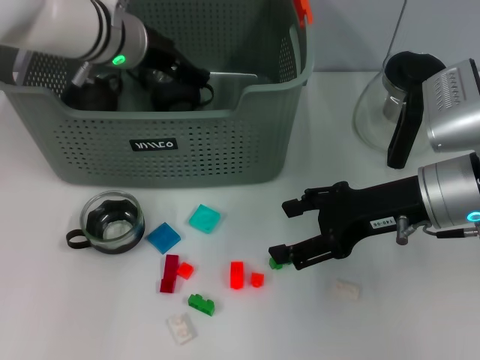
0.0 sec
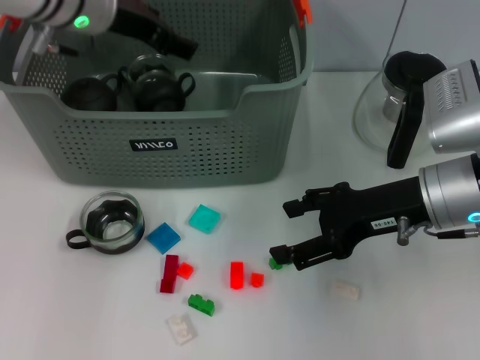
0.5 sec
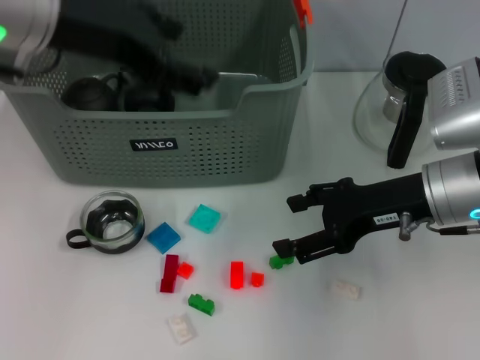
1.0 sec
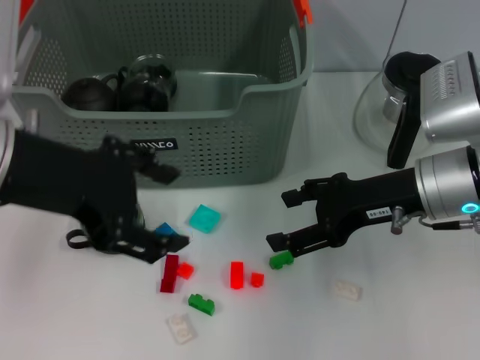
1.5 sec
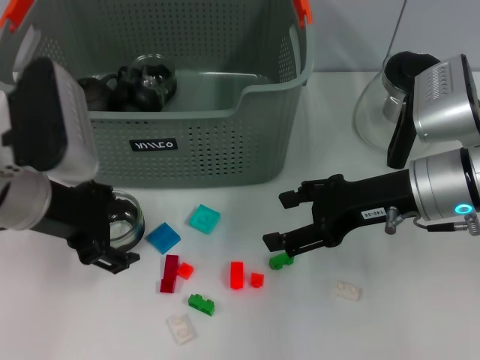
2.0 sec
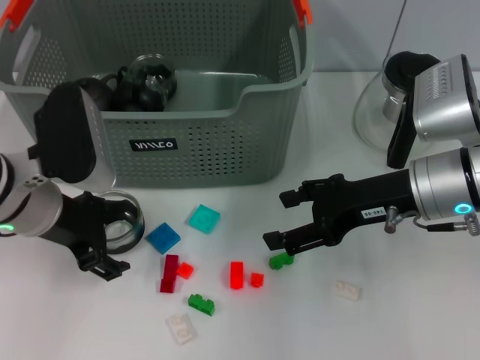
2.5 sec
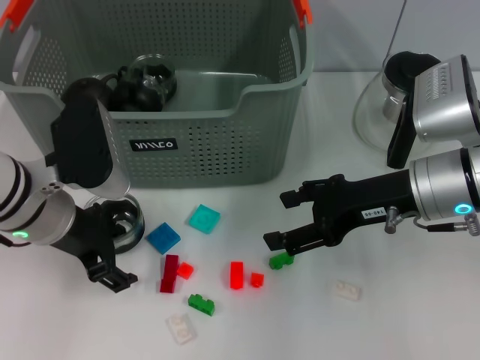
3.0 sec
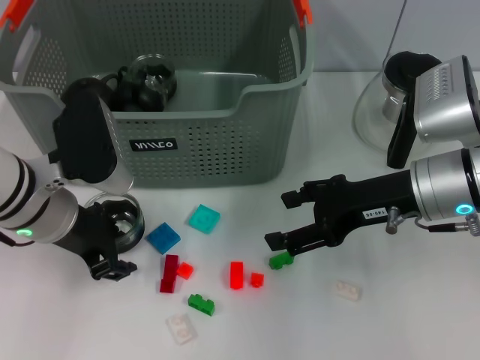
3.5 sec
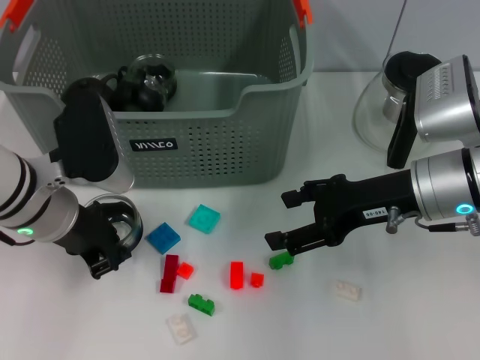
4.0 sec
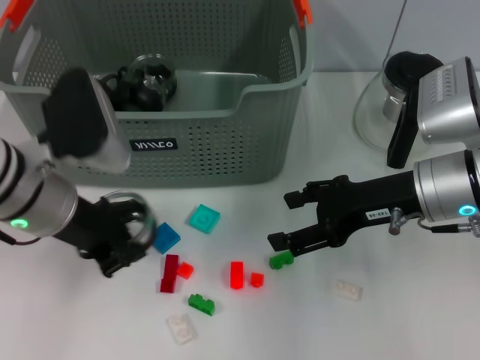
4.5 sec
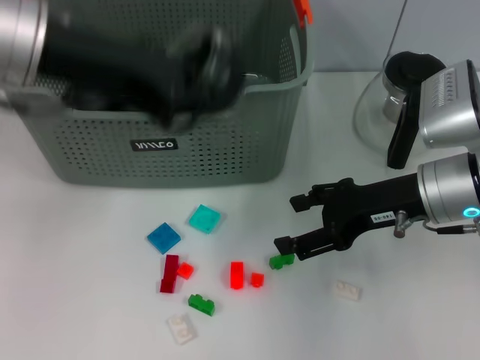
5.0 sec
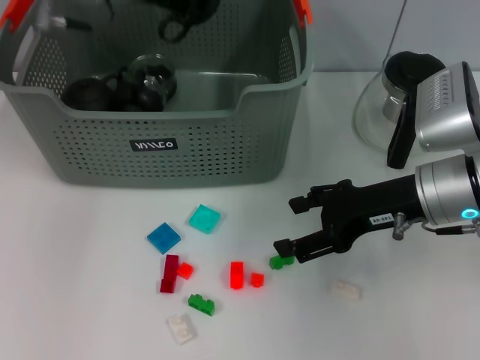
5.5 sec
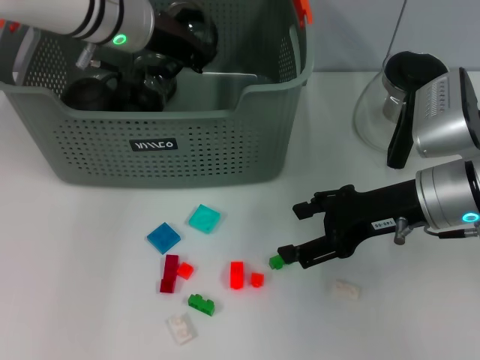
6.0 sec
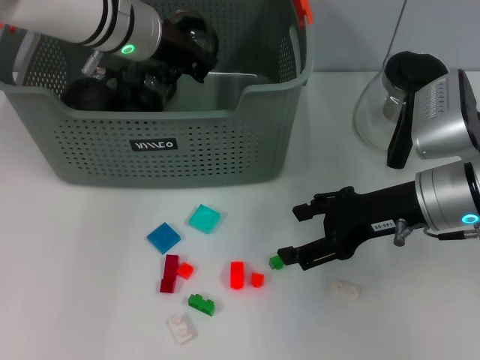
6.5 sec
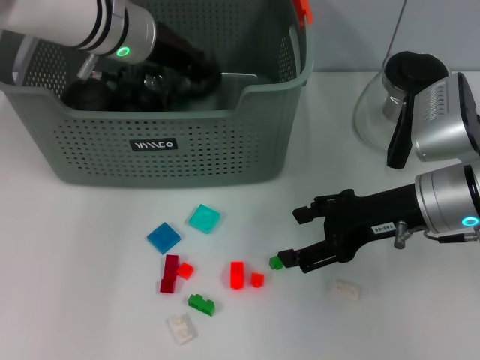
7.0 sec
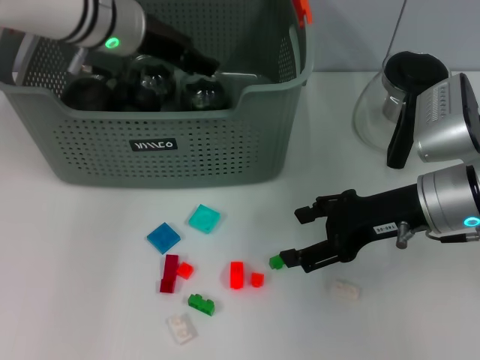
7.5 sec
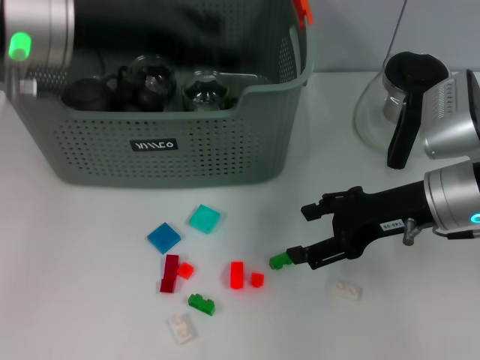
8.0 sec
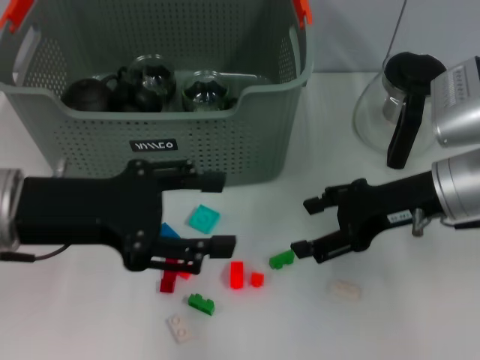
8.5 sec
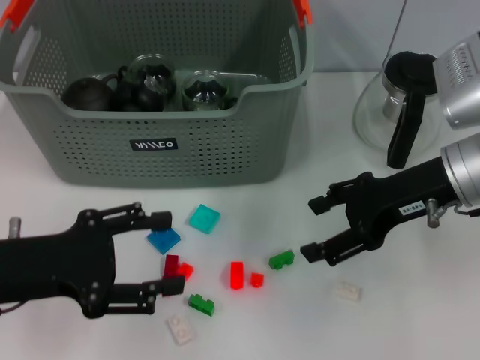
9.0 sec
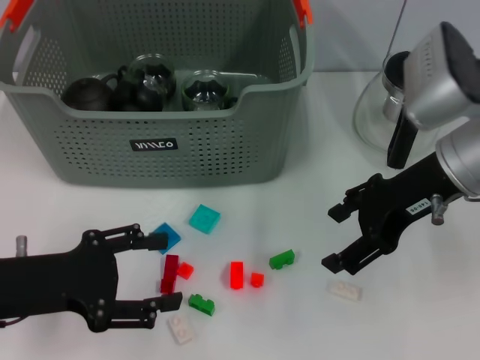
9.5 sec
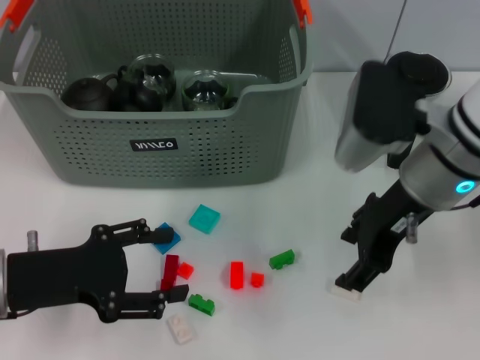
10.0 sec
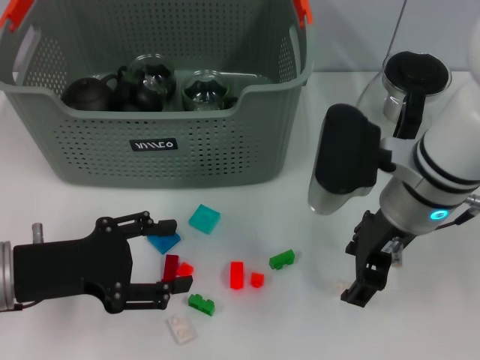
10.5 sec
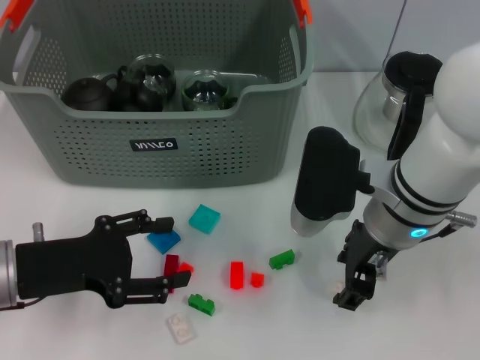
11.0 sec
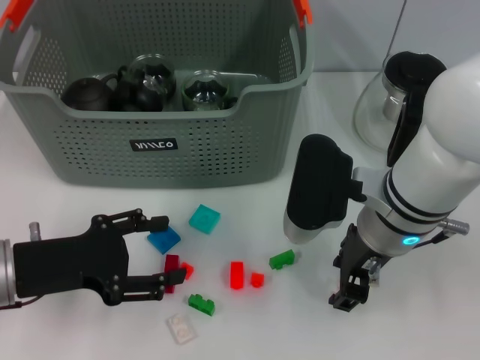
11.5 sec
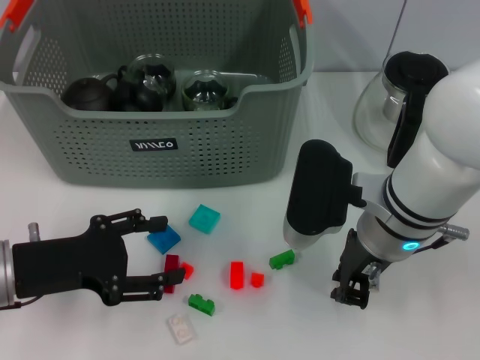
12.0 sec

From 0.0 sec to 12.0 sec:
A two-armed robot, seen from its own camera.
Task of the whole recording: pick up the teacup on the table and place it into the storage bin, pick up the block on the table and place it into the storage bin.
Step, from 1.0 sec to 3.5 sec: Grasp the cup with left gripper.
Step, from 4.0 sec to 7.5 sec: Place the cup in the storage box with left gripper.
From 0.0 sec to 2.0 sec: The left gripper goes approximately 15 cm backward and to the left.
From 2.0 sec to 4.0 sec: The left gripper closes its fingers.
From 4.0 sec to 6.0 sec: The left gripper goes approximately 15 cm forward and upward.
From 6.0 sec to 8.0 sec: The left gripper moves backward and upward, roughly 10 cm, and opens.
From 8.0 sec to 10.0 sec: The left gripper goes about 20 cm downward, backward and to the left. Meanwhile the right gripper moves upward and to the left, roughly 5 cm.
From 10.0 sec to 12.0 sec: The right gripper moves downward, about 5 cm, and closes up.

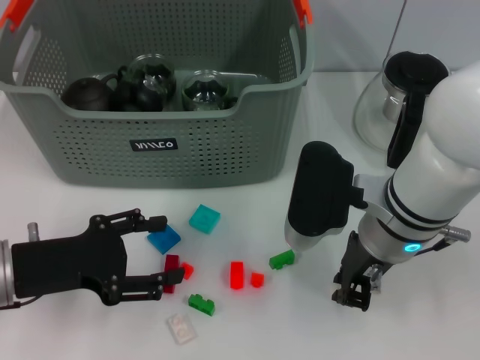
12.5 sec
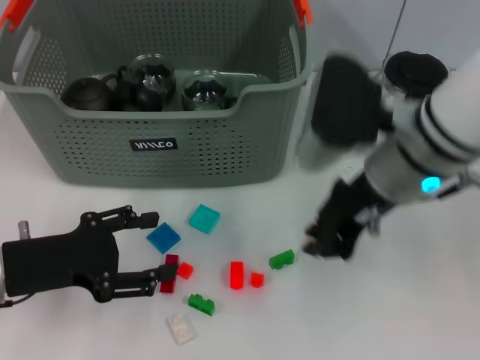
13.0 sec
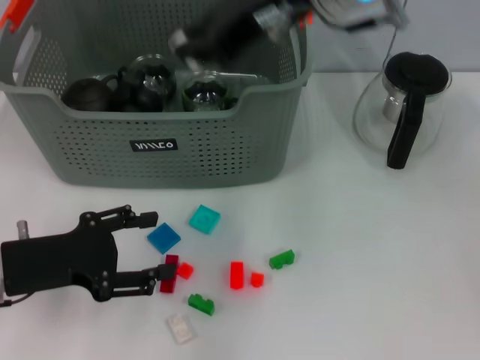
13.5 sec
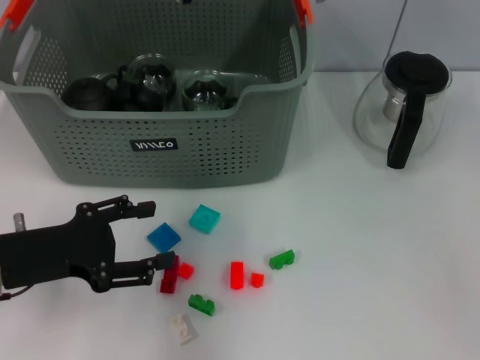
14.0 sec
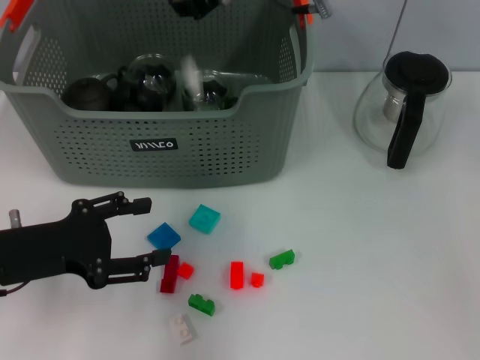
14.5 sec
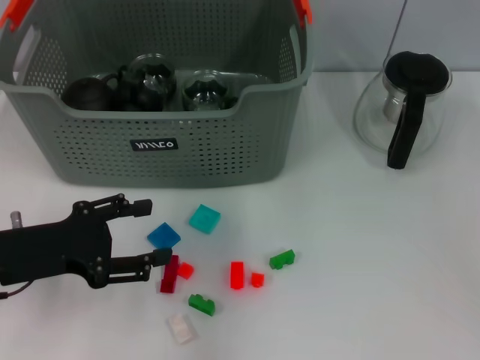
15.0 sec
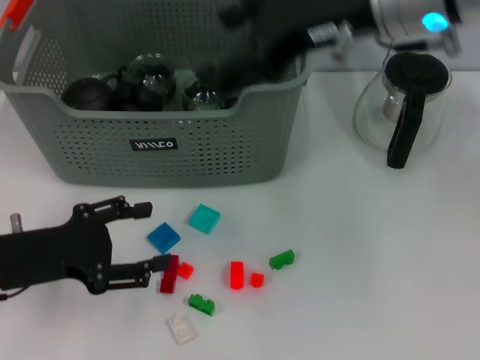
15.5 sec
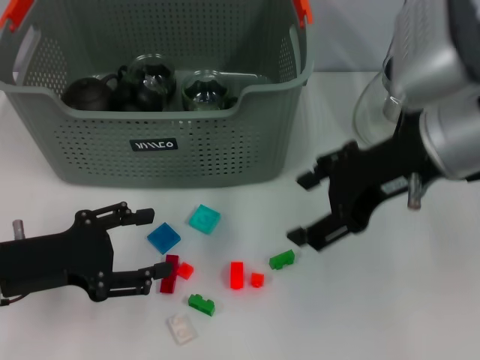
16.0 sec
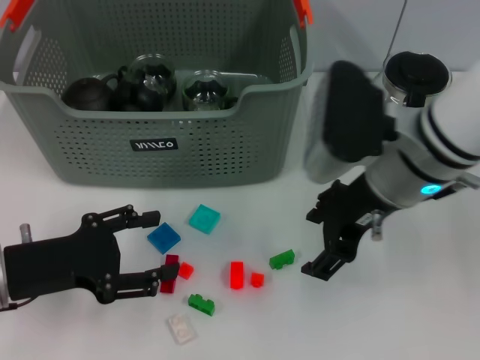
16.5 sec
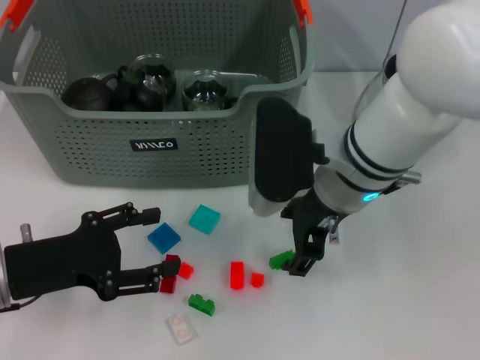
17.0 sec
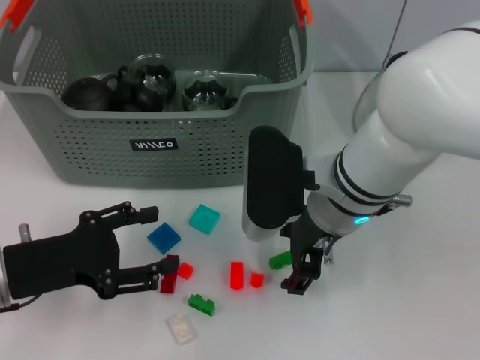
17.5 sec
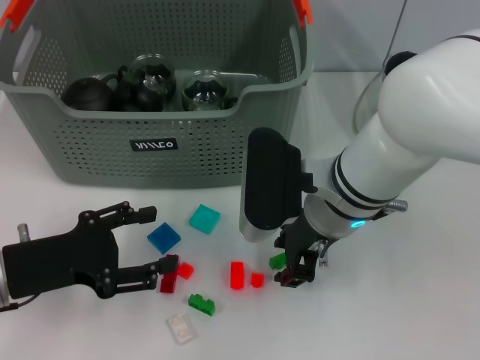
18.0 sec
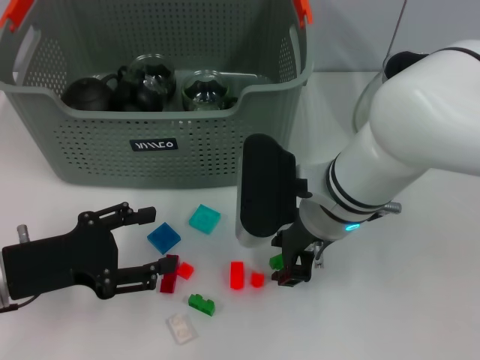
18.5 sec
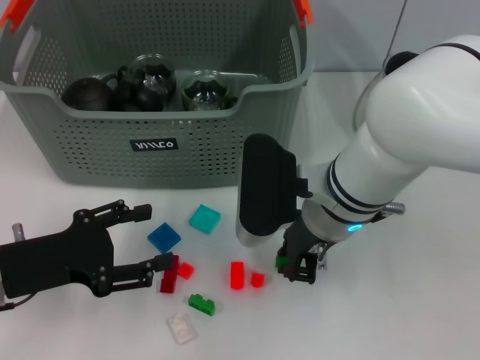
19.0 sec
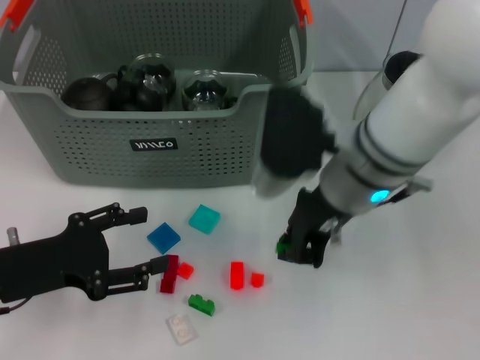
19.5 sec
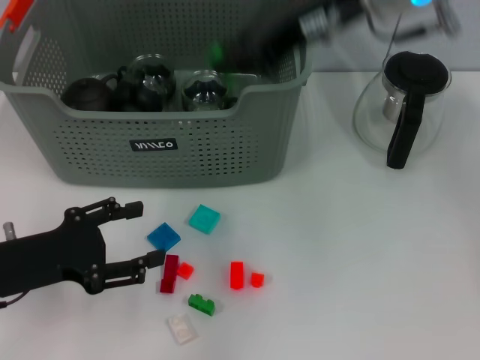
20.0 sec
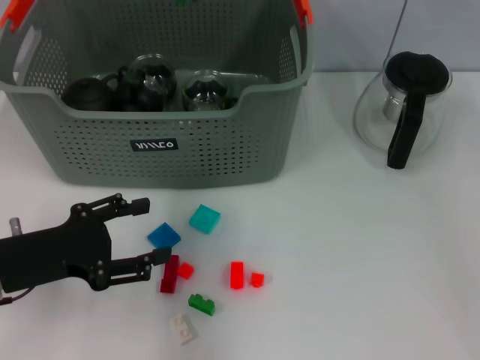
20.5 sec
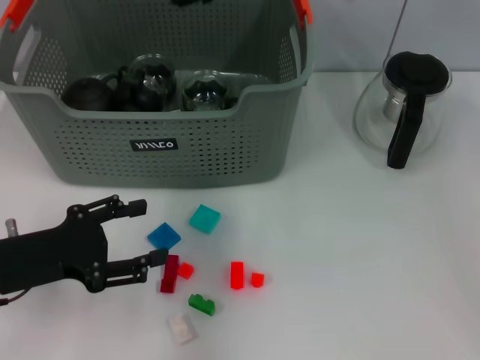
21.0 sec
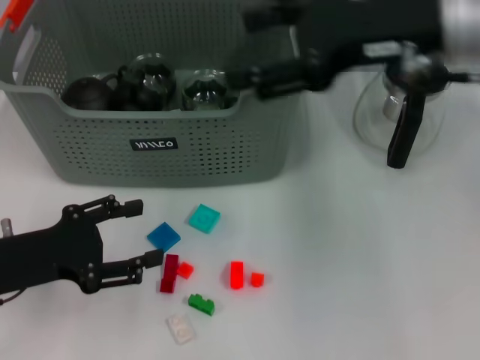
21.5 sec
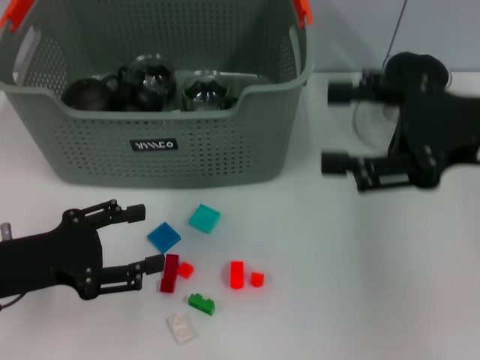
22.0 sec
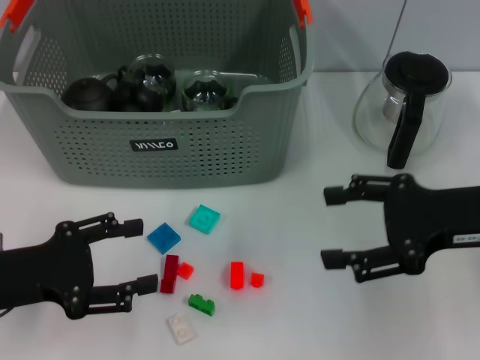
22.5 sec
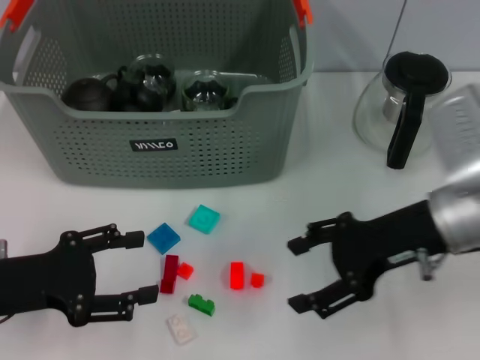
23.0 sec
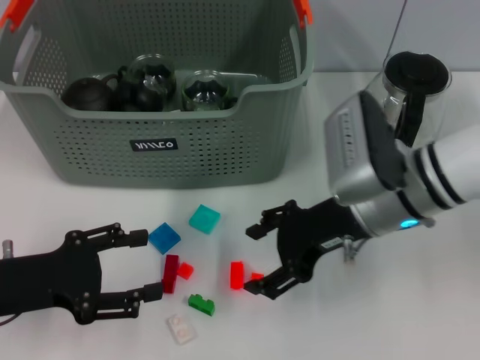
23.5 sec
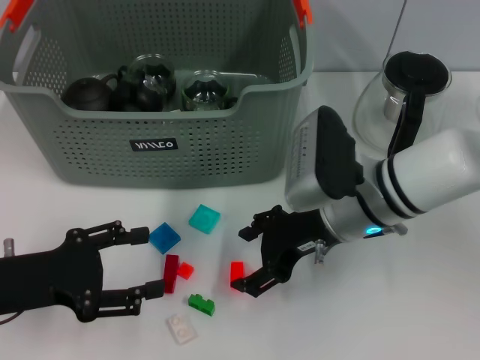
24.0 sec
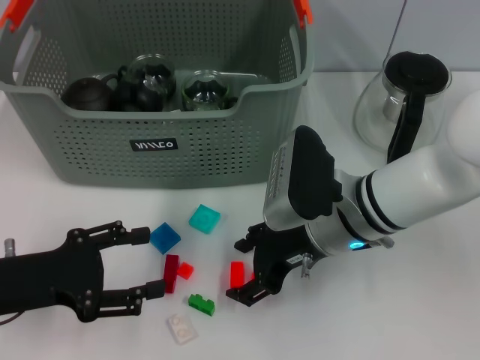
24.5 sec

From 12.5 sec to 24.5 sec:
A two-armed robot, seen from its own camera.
Task of the whole recording: pick up the teacup on the table and place it into the storage bin, pick up the block on the table and place it into the storage bin.
Step, from 12.5 sec to 14.5 sec: Place the white block in the storage box with right gripper.
Step, from 15.0 sec to 19.0 sec: Grasp the green block with right gripper.
Step, from 19.5 sec to 20.5 sec: Place the green block in the storage box with right gripper.
From 12.5 sec to 14.5 sec: The right gripper travels forward, upward and to the left by roughly 20 cm.
From 14.5 sec to 16.5 sec: The right gripper moves backward, to the right and downward, approximately 15 cm, and opens.
From 16.5 sec to 18.5 sec: The right gripper shifts some 10 cm downward and to the left, and closes its fingers.
From 18.5 sec to 20.5 sec: The right gripper heads upward and forward, covering approximately 20 cm, and closes up.
From 20.5 sec to 22.5 sec: The right gripper shifts approximately 30 cm to the right, backward and downward, and opens.
From 22.5 sec to 24.5 sec: The right gripper goes roughly 15 cm to the left and downward.

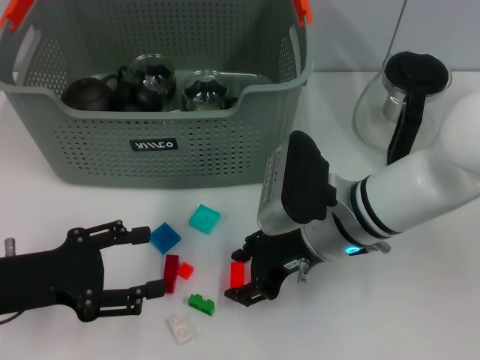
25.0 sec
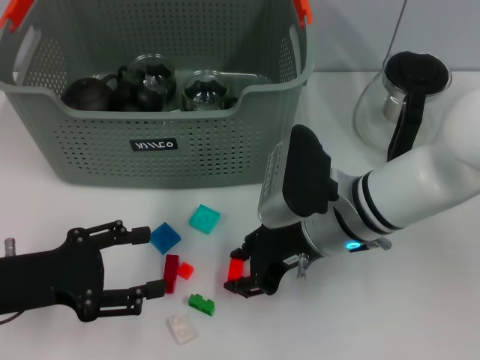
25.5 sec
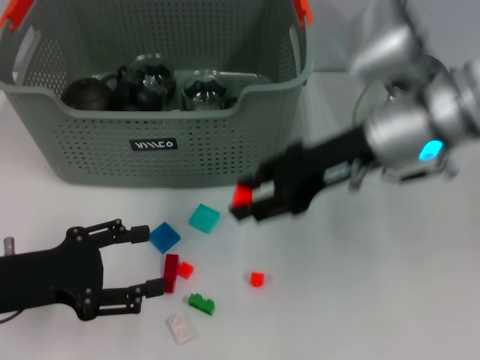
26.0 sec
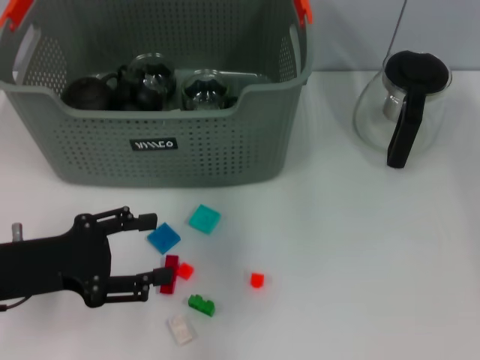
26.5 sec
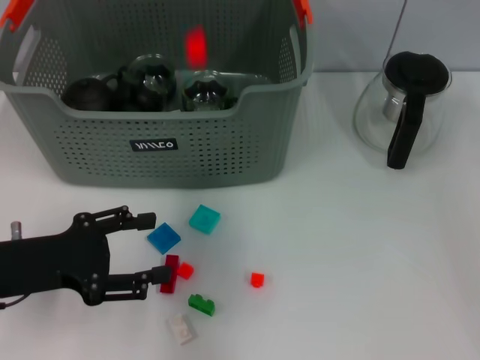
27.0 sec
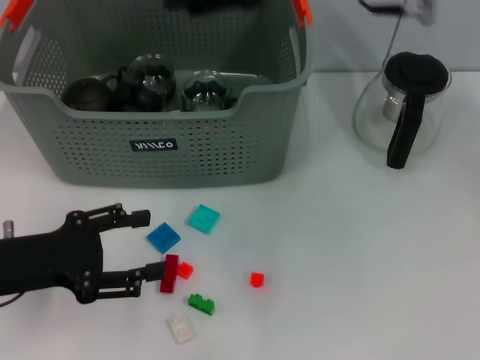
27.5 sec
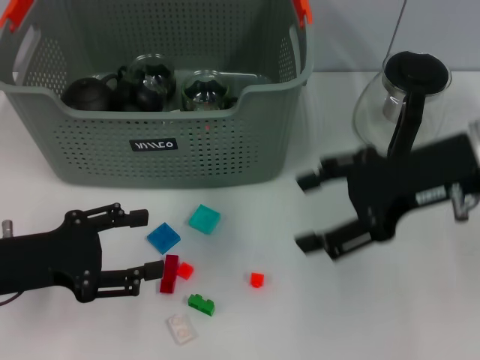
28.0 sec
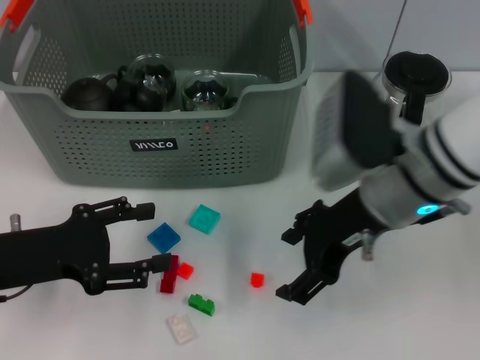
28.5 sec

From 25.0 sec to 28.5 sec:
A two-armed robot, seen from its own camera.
Task of the whole recording: pick up the teacup on the table and place it into the storage bin, pick up the block on the table and place it into the storage bin.
Step, from 25.5 sec to 27.0 sec: Place the orange block in the storage box with right gripper.
From 25.0 sec to 27.0 sec: The right gripper moves upward and forward, some 25 cm.
From 27.0 sec to 28.5 sec: The right gripper is displaced downward, backward and to the right by some 20 cm, and opens its fingers.
